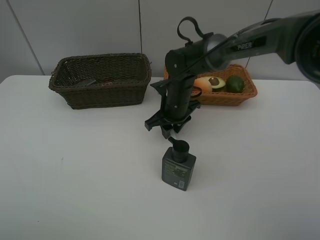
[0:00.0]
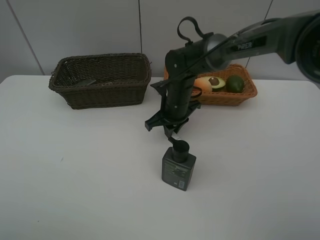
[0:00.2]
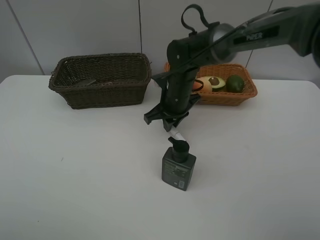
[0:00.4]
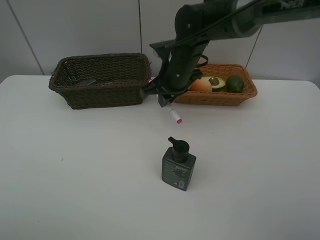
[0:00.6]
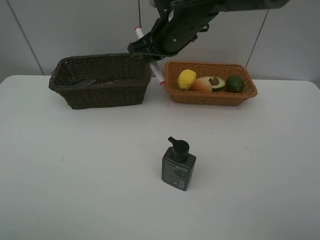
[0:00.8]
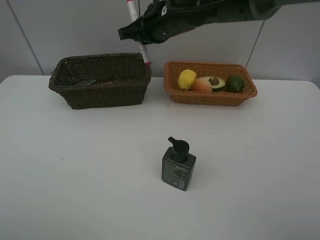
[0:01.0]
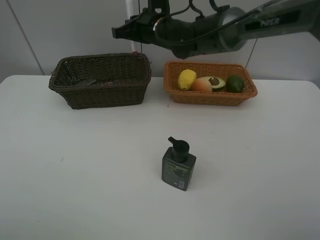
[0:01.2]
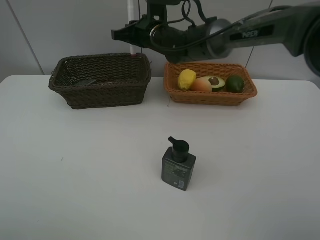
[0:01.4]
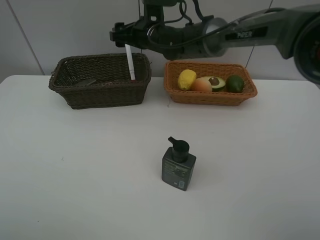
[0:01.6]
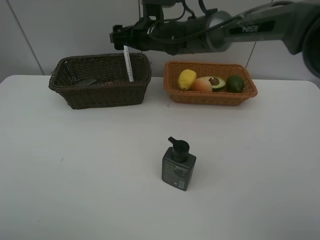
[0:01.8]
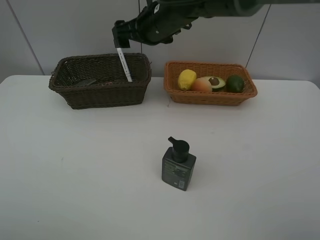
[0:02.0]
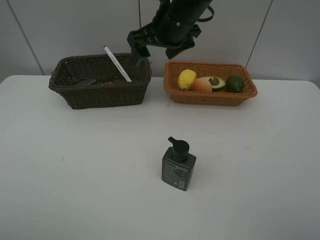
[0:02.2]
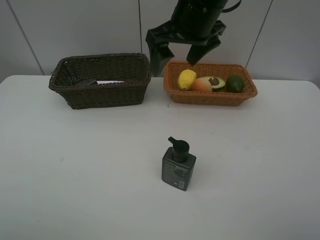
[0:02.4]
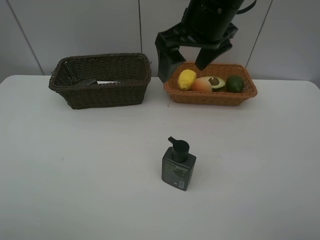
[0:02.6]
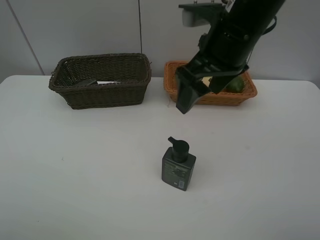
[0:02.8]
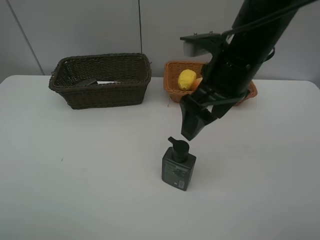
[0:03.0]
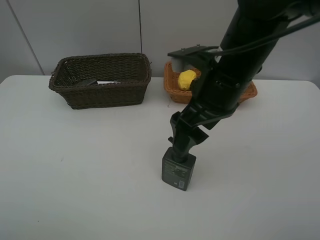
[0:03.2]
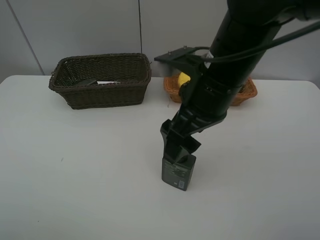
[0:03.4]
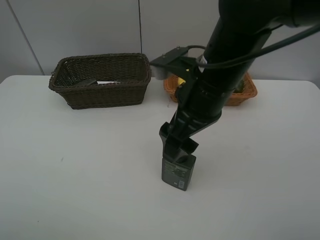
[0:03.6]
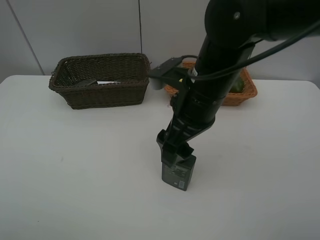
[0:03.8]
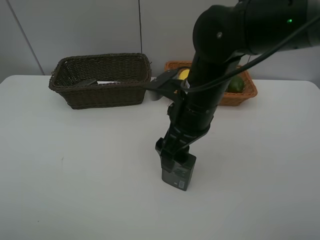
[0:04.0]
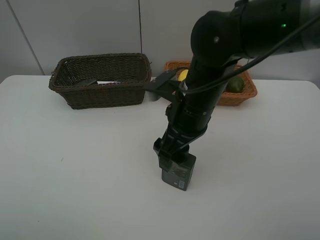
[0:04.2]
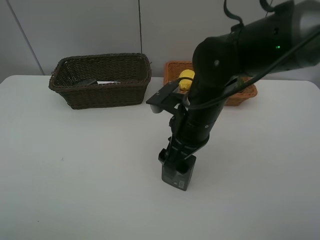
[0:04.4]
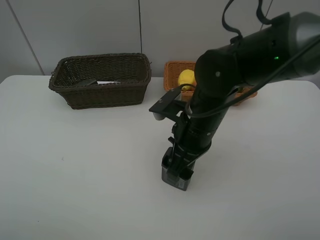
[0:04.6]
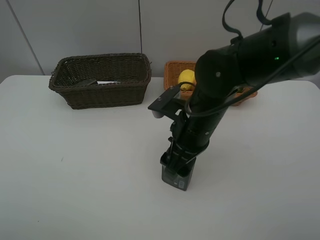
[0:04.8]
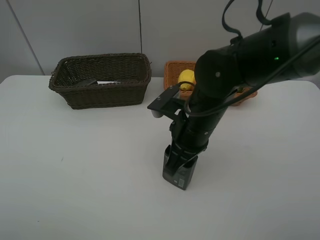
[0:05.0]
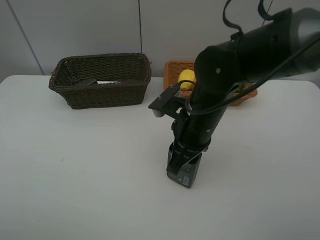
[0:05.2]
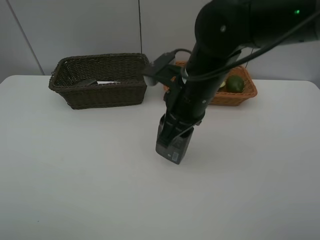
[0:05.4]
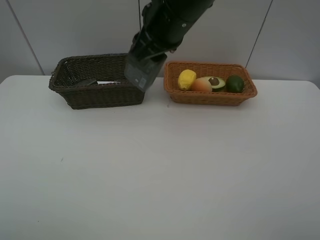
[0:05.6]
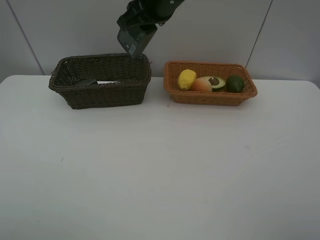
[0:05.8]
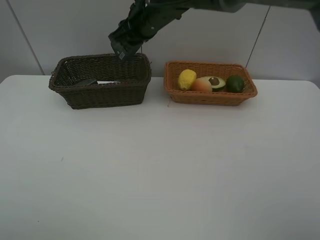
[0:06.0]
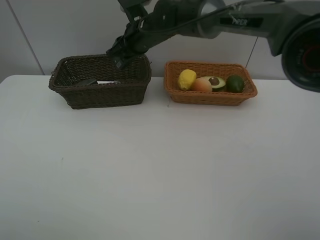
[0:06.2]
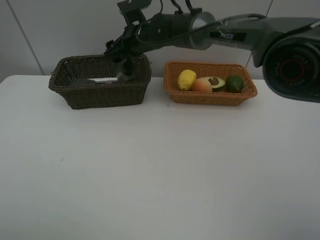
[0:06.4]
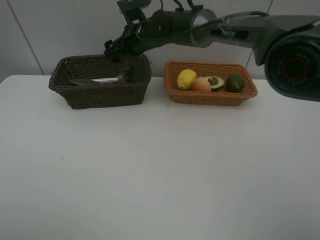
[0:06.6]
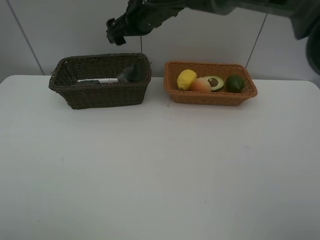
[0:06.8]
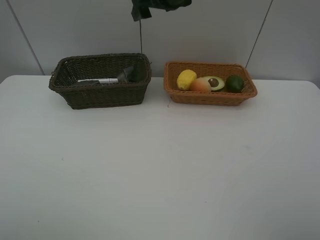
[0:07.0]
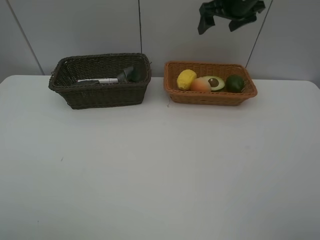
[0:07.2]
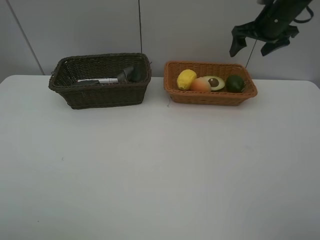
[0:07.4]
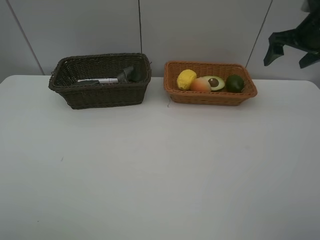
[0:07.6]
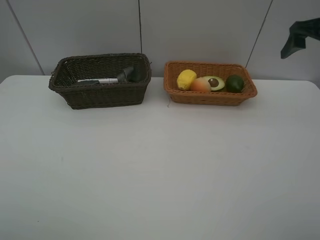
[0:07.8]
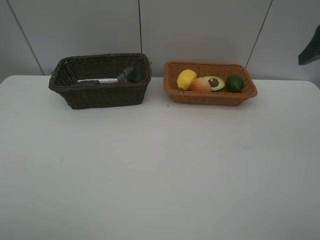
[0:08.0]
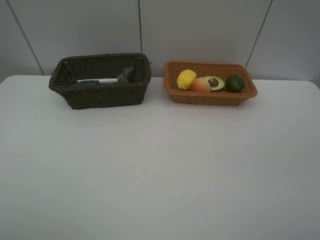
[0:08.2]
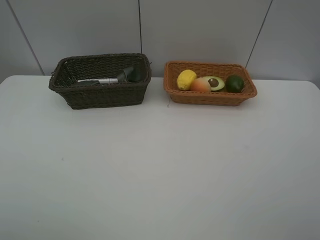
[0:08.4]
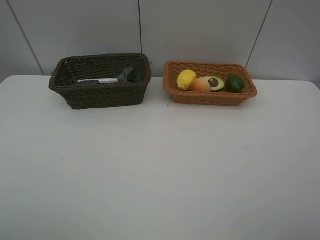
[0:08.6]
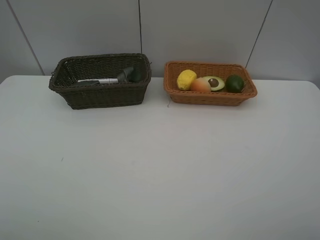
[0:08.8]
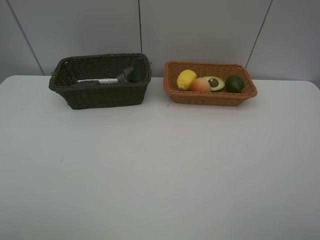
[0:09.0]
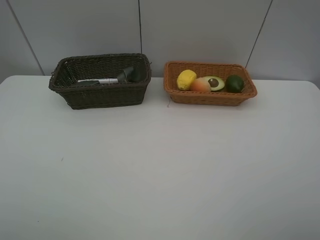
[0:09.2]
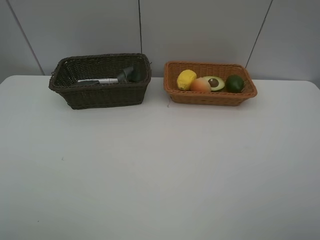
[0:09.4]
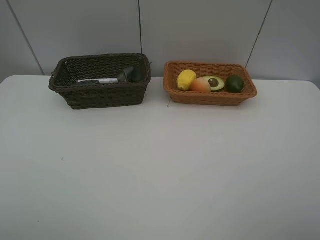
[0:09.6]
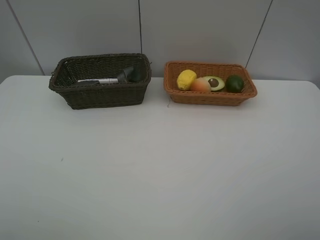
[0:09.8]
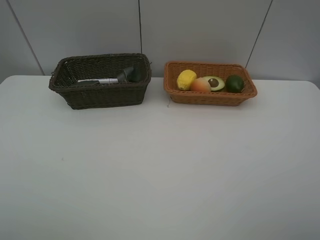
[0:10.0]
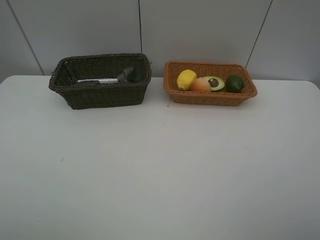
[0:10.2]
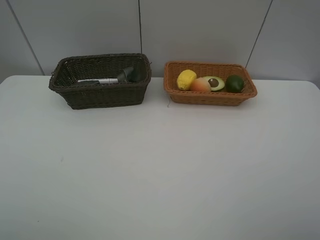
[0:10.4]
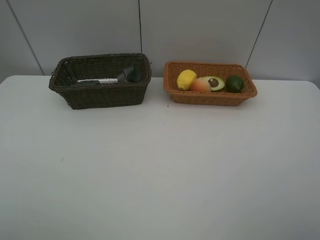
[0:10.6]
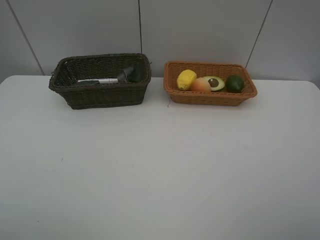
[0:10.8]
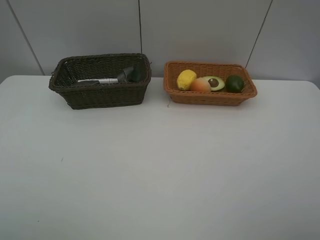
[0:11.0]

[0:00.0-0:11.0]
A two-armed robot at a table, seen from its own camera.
Task of the whole recording: Place multiple objects separately in different baskets.
Step, 0:00.6 to 0:02.4: Place the red marker in the dark basket with right gripper.
Step, 0:02.6 to 0:05.2: Pick up the hard facial cleanser with right gripper.
Step, 0:05.4 to 0:06.6: Place the hard facial cleanser in the dark basket with right gripper.
0:00.0 to 0:01.6: The right gripper travels upward, forward and to the left by roughly 15 cm, and opens its fingers.
0:01.6 to 0:03.2: The right gripper shifts about 25 cm backward and to the right.
0:03.2 to 0:04.8: The right gripper goes some 10 cm downward.
0:04.8 to 0:06.2: The right gripper moves forward and to the left, some 25 cm, and closes.
0:06.2 to 0:07.8: The right gripper travels to the right by about 35 cm, and opens.
0:07.8 to 0:09.4: The right gripper heads backward, covering roughly 35 cm.
0:09.4 to 0:11.0: Neither gripper changes place.
